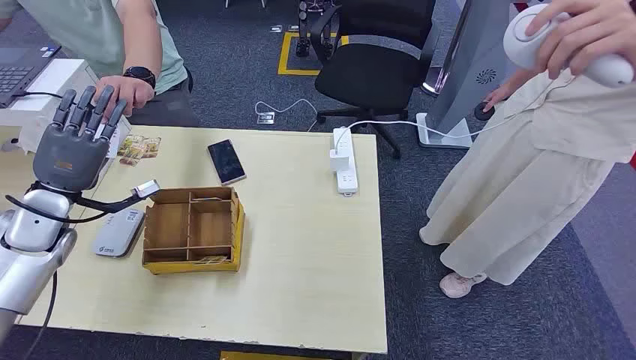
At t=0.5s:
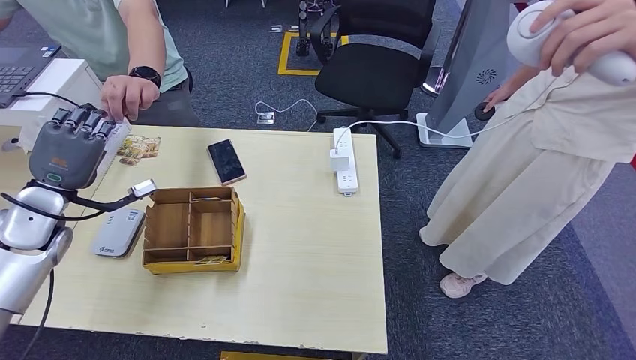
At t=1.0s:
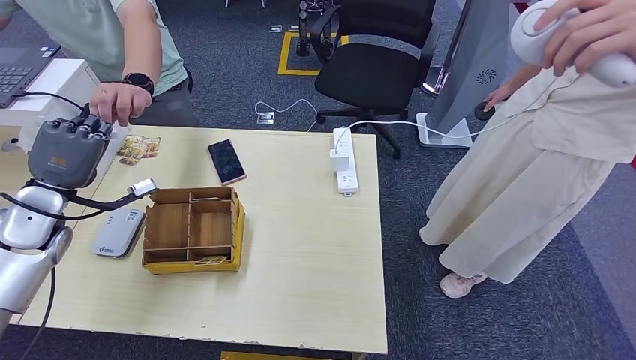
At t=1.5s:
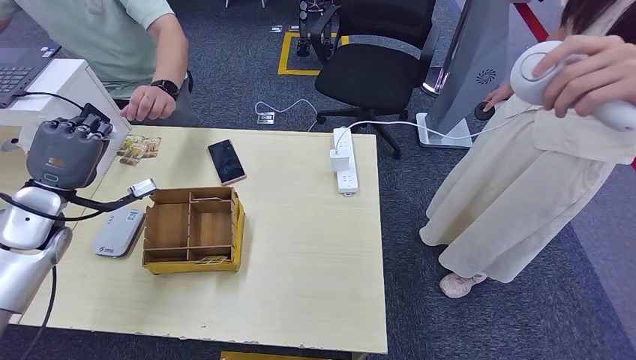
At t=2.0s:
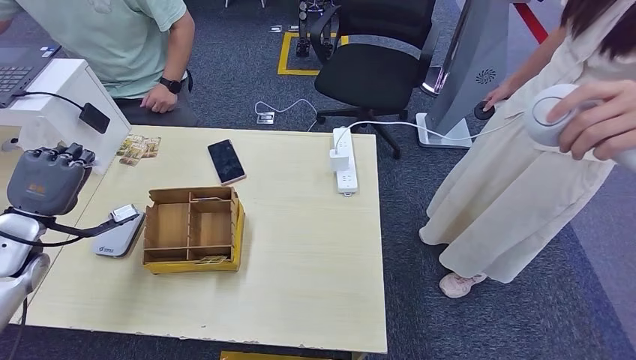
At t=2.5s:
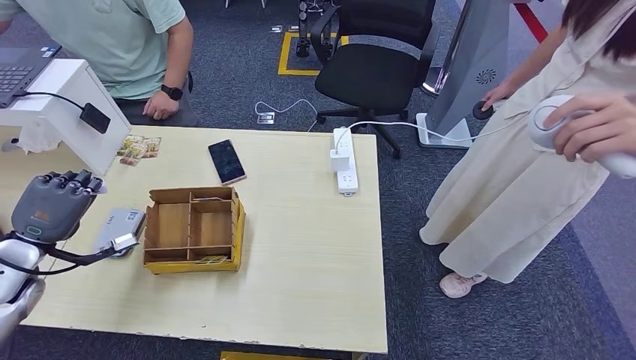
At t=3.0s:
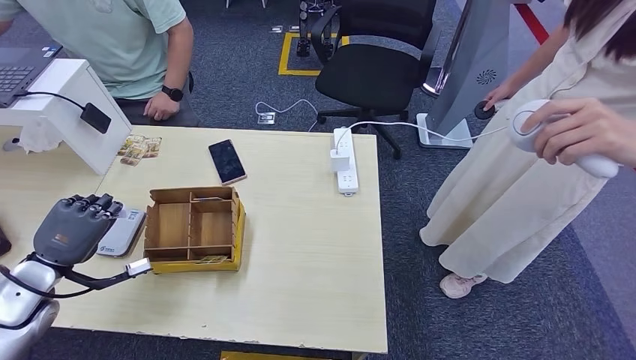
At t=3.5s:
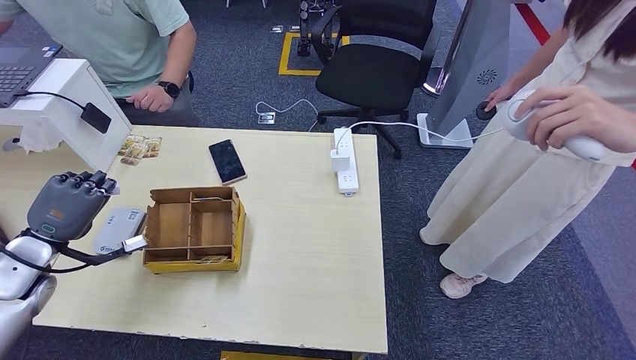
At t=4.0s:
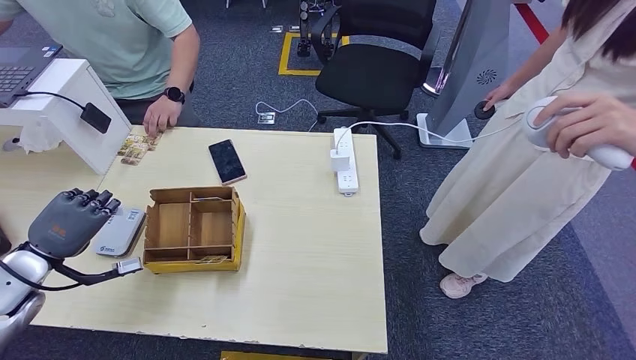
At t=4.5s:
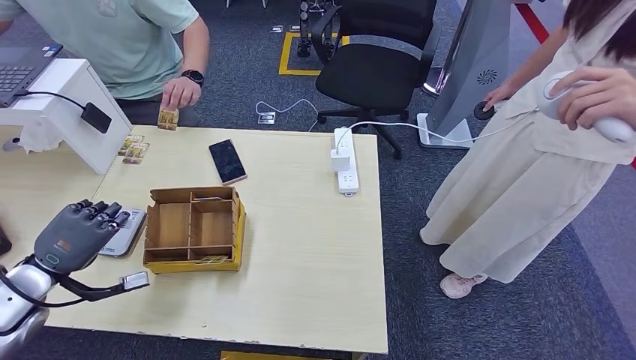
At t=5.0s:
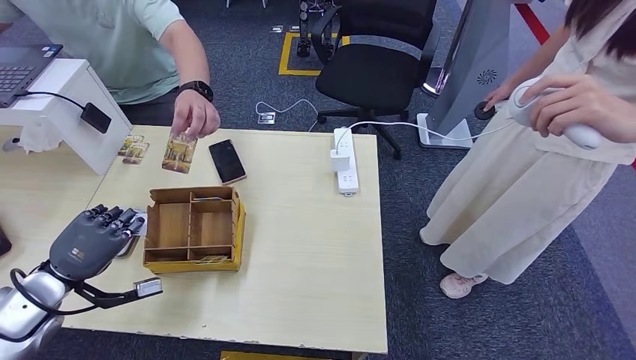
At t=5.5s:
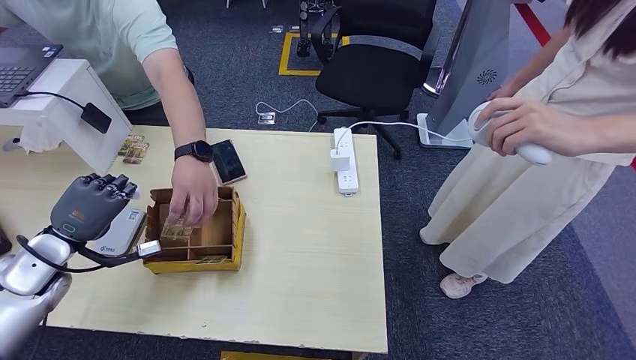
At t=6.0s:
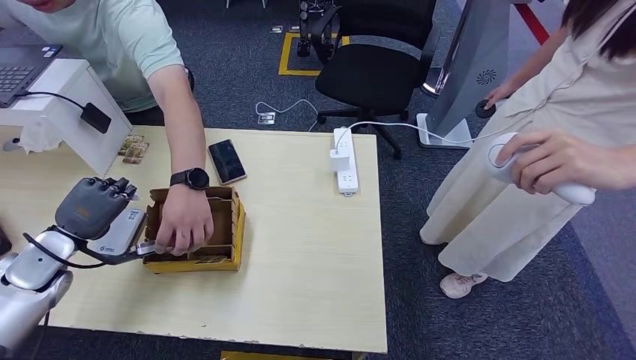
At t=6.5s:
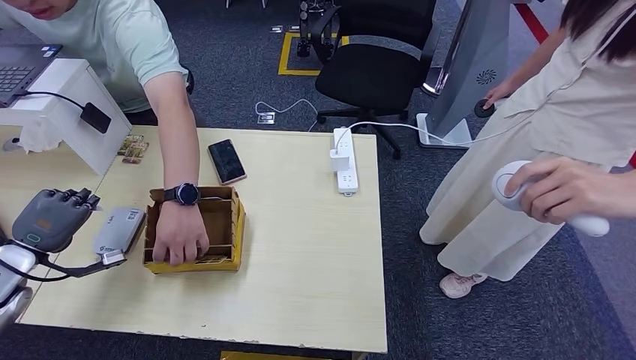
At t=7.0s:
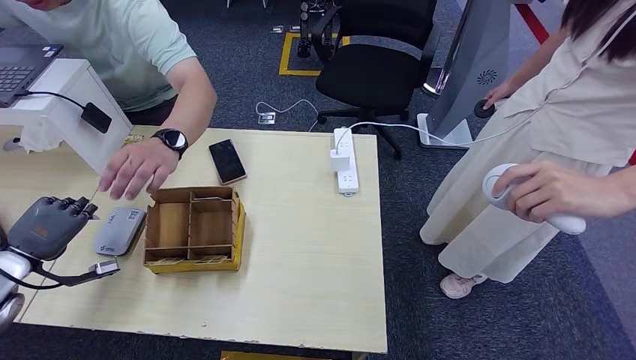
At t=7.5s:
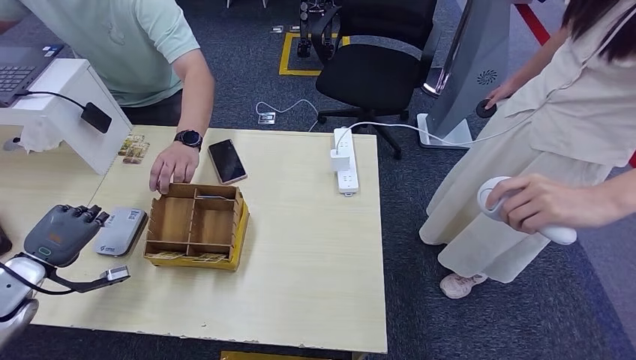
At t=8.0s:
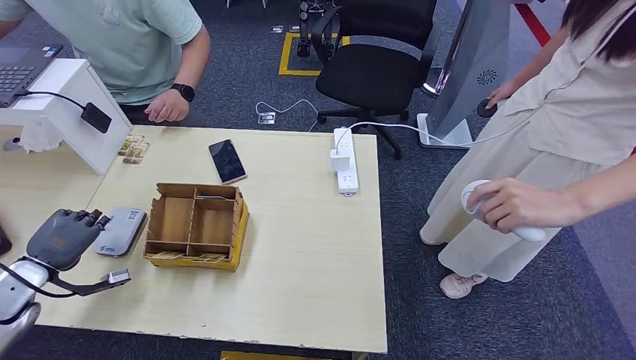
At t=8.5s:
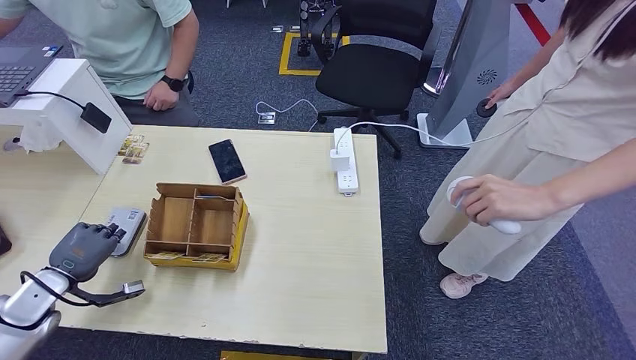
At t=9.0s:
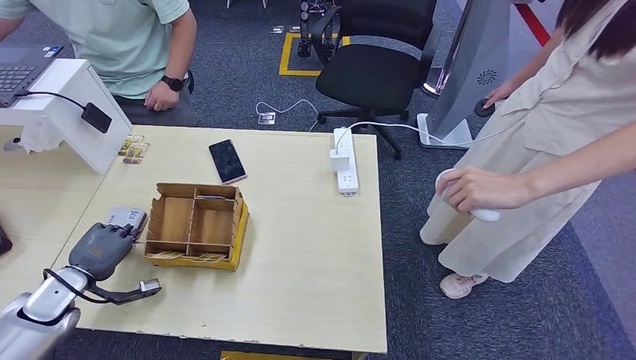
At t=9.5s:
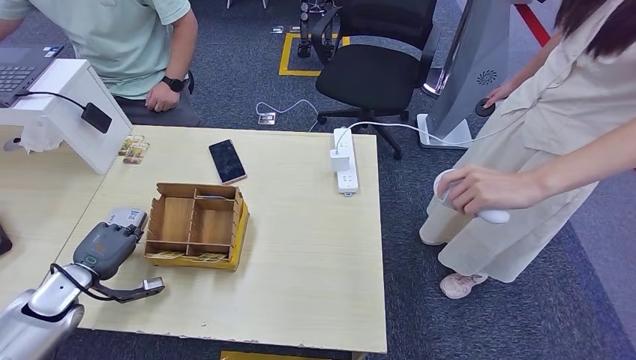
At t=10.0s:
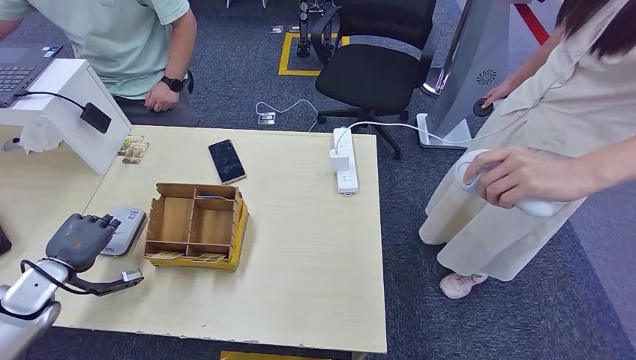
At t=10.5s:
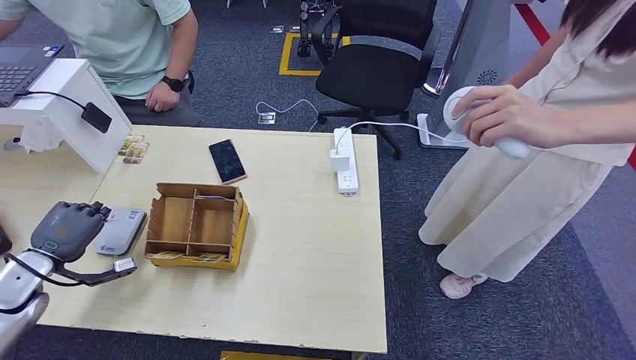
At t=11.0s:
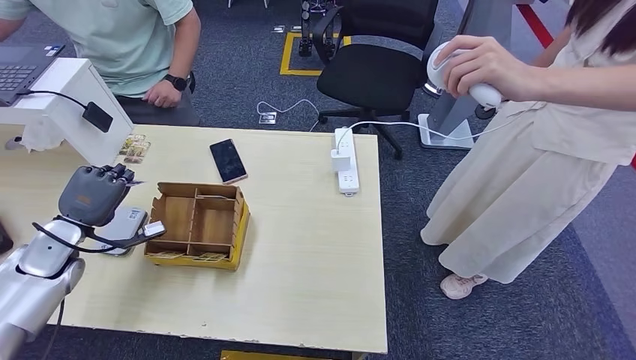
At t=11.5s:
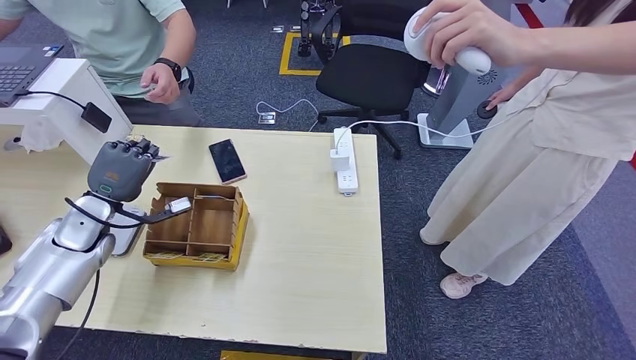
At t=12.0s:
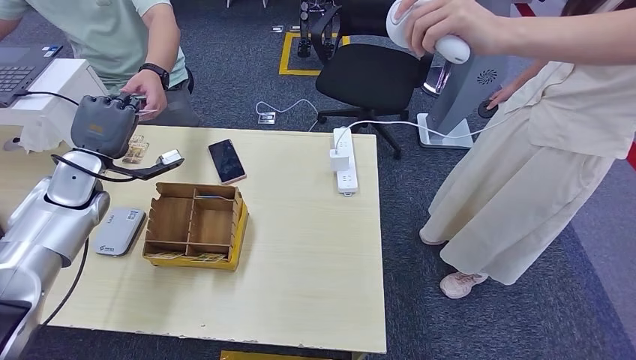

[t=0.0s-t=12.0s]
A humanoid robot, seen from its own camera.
Step, t=0.0s to t=0.5s: Take the ID card from the person's hand.
Step, t=1.0s to t=10.5s: Place the ID card on the card reader.
t=2.0s to t=4.0s: The left hand changes place by about 5 cm.
t=10.0s to t=12.0s: The left hand heads forward, upward and to the right, covering roughly 20 cm.

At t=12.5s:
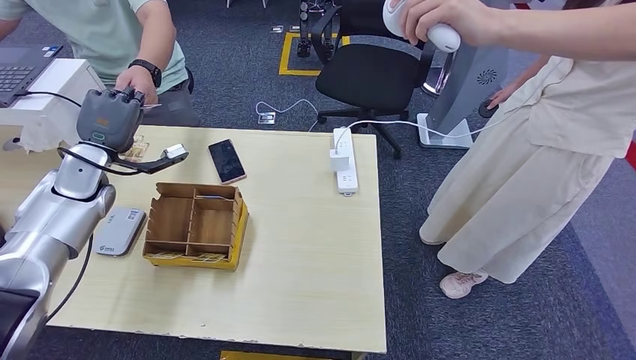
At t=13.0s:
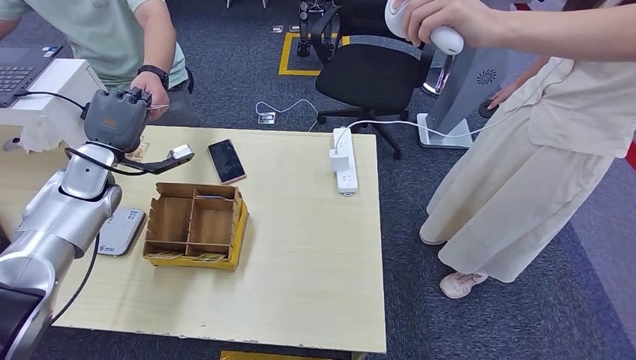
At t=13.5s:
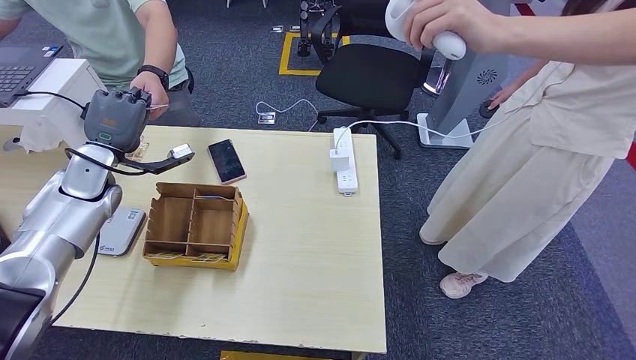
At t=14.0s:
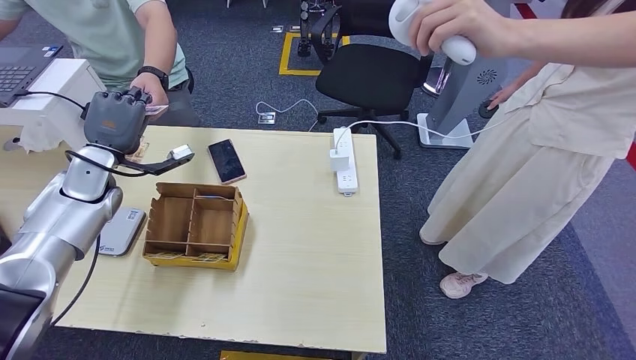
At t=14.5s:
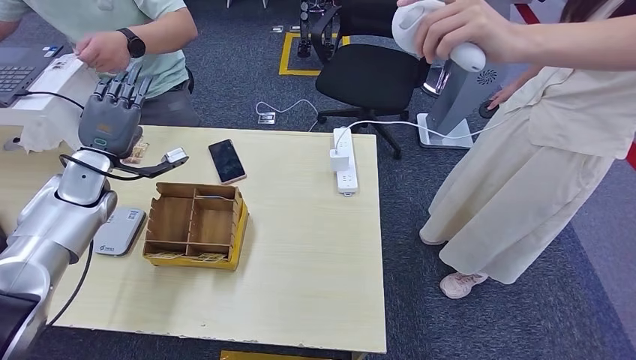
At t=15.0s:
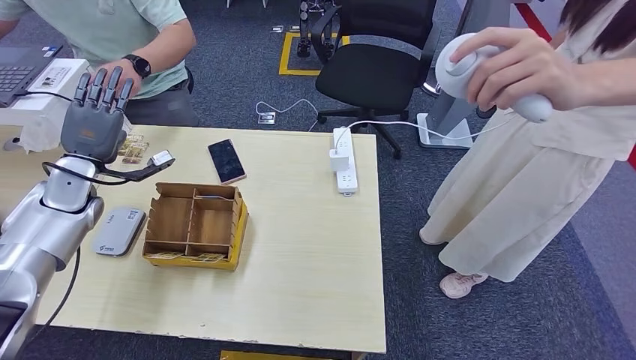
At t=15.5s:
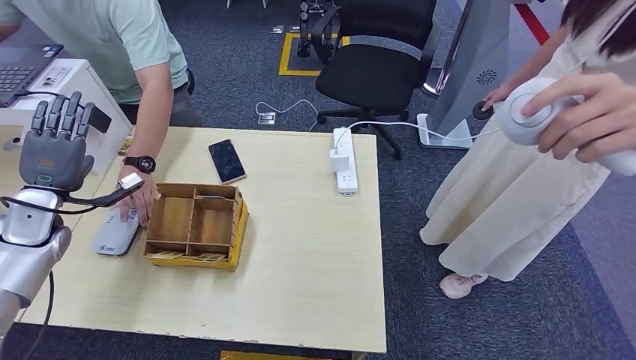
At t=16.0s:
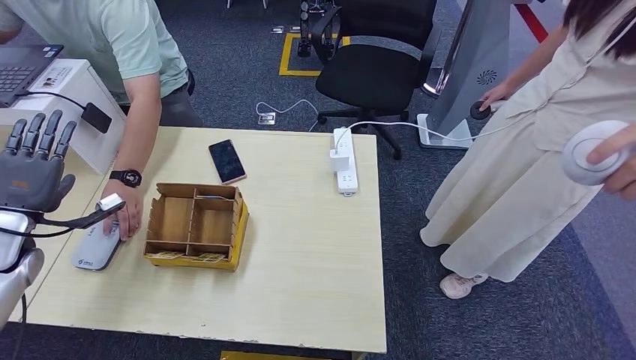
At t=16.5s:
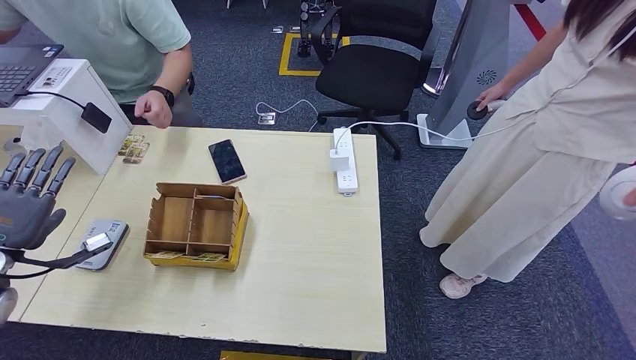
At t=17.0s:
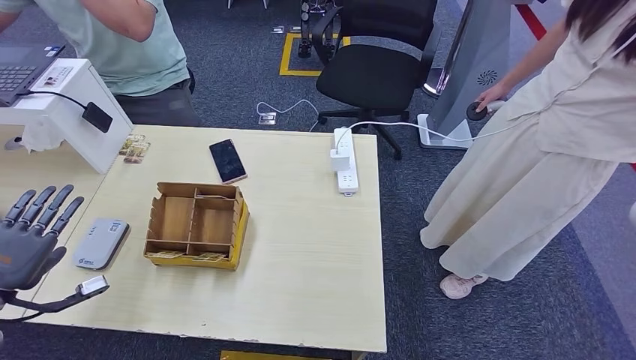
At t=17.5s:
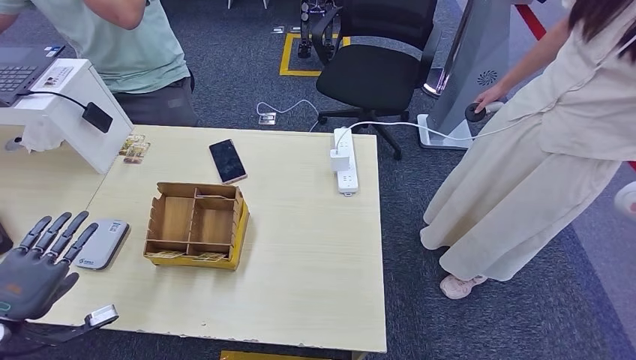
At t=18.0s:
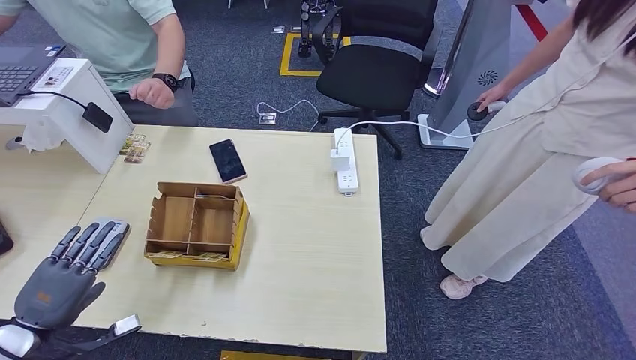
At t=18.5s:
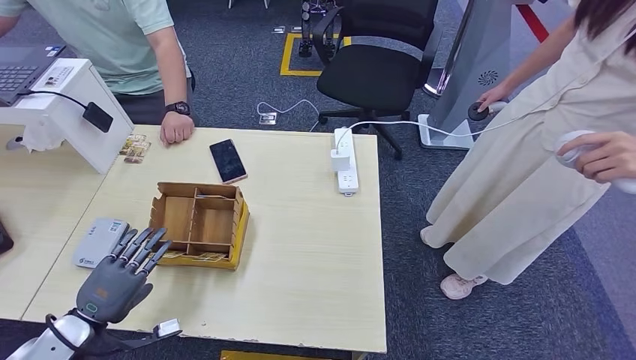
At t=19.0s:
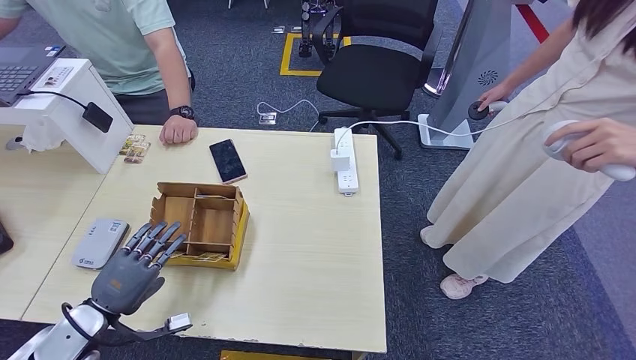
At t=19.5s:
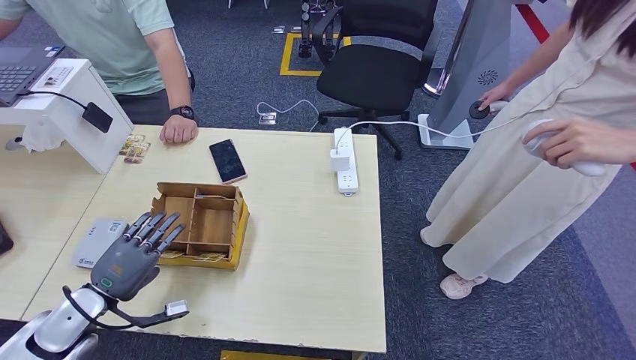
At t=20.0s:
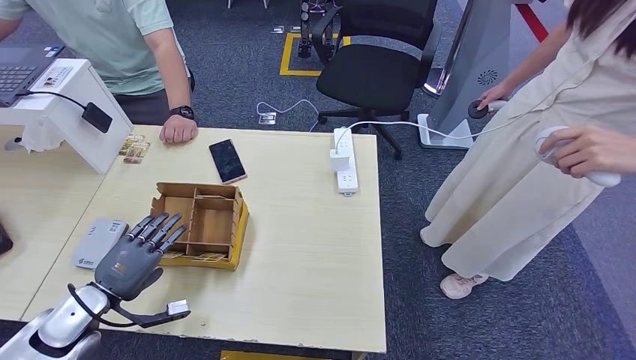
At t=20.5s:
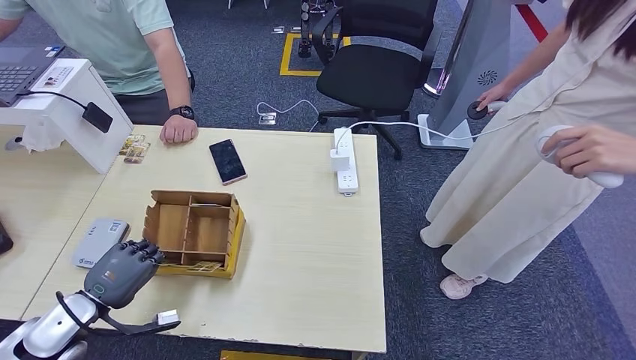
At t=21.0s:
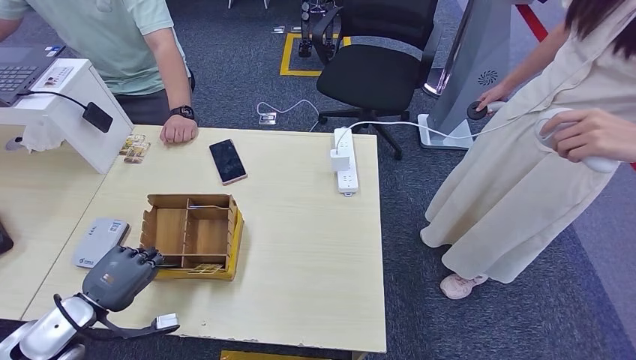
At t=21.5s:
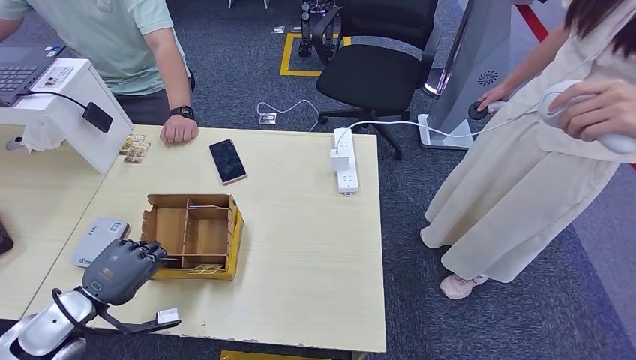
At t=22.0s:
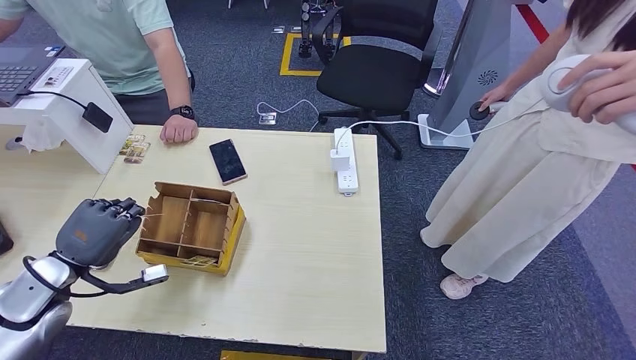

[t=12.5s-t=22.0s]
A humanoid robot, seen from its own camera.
Step, t=14.5s to t=22.0s: Pick up the room key from the key card box.
t=12.5s to t=14.5s: Both hands stay put.
t=16.5s to t=18.0s: The left hand heads backward, to the right and downward, covering approximately 15 cm.
t=18.0s to t=20.0s: The left hand travels forward and to the right by some 10 cm.
t=20.0s to t=22.0s: The left hand travels upward by approximately 5 cm.
